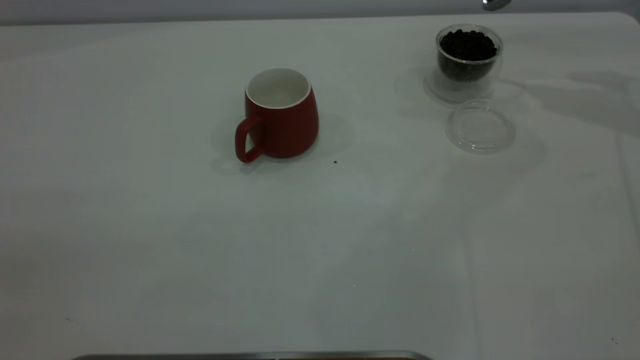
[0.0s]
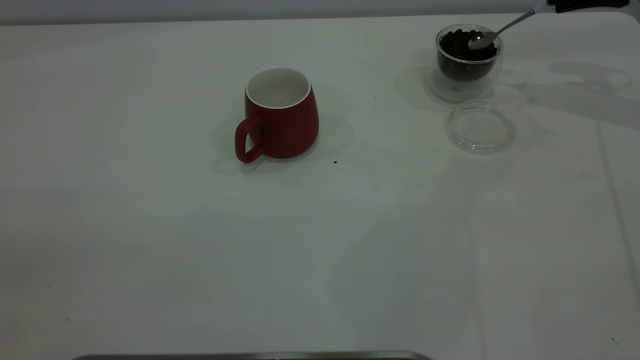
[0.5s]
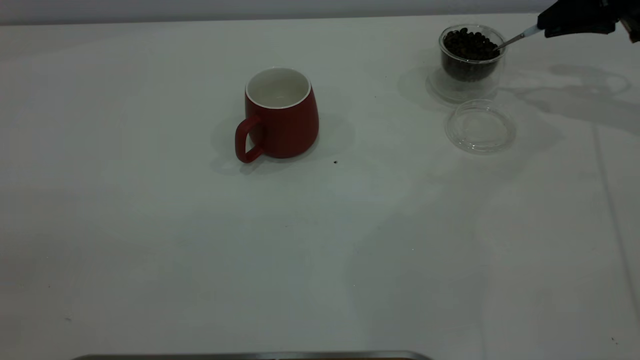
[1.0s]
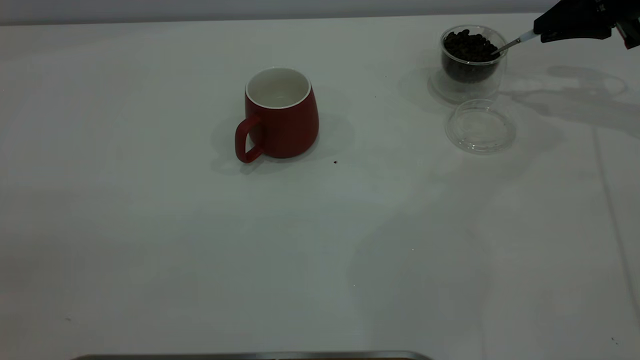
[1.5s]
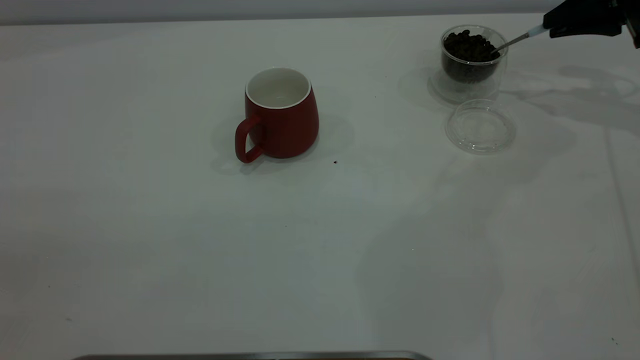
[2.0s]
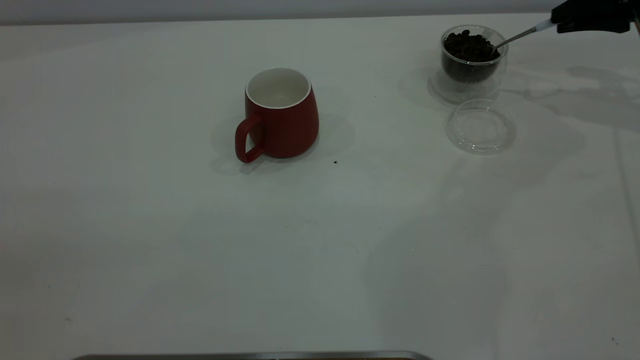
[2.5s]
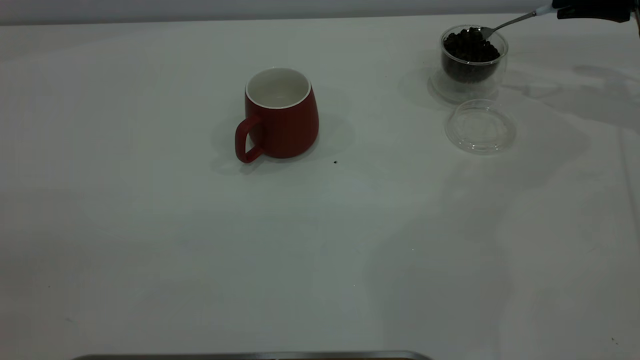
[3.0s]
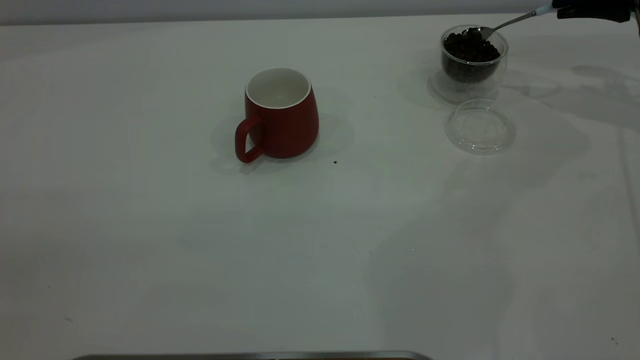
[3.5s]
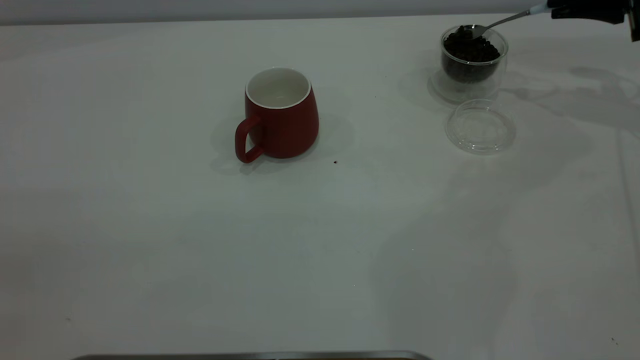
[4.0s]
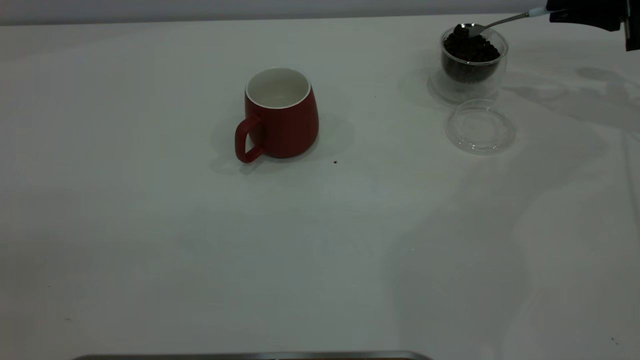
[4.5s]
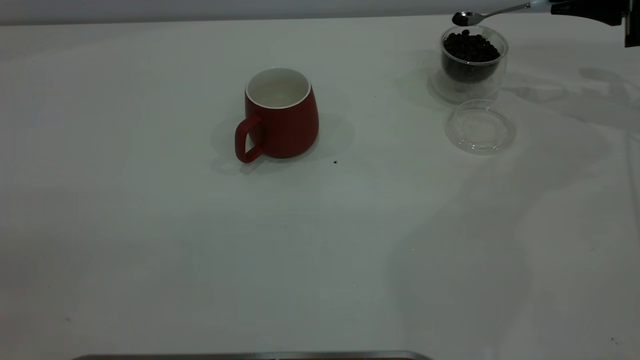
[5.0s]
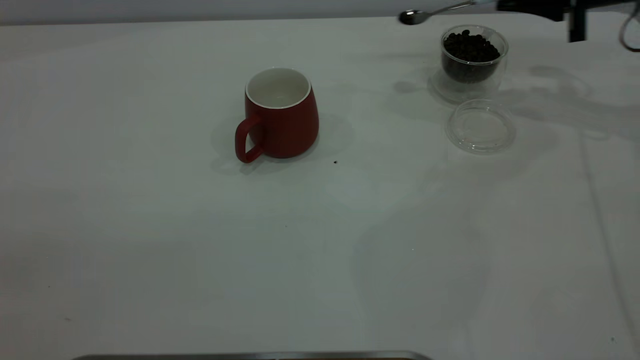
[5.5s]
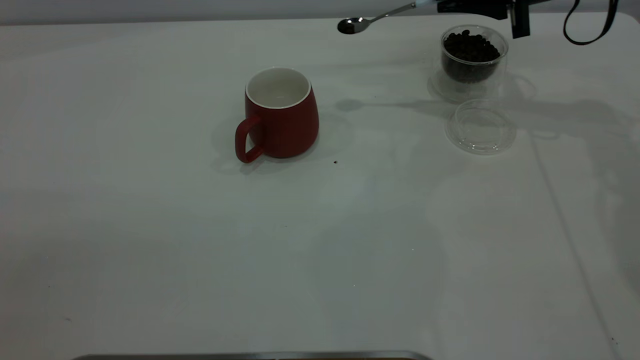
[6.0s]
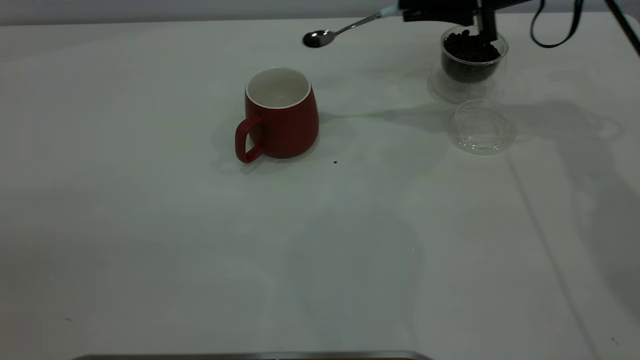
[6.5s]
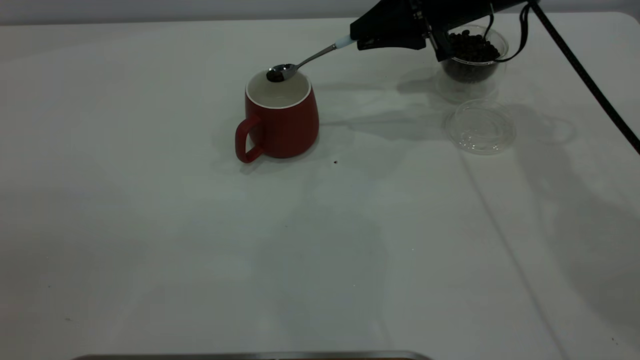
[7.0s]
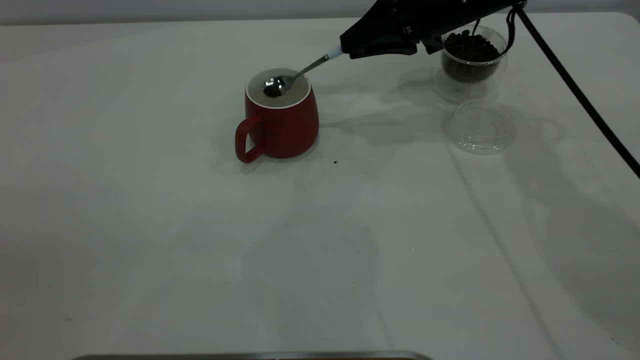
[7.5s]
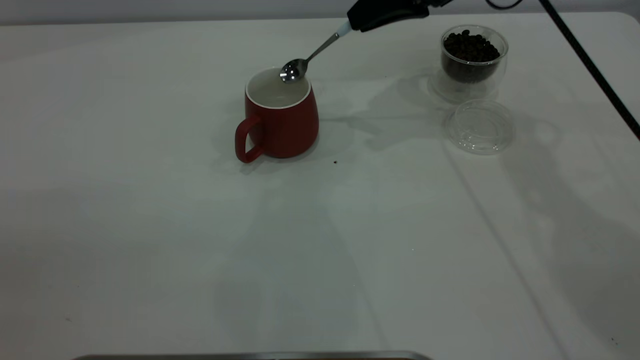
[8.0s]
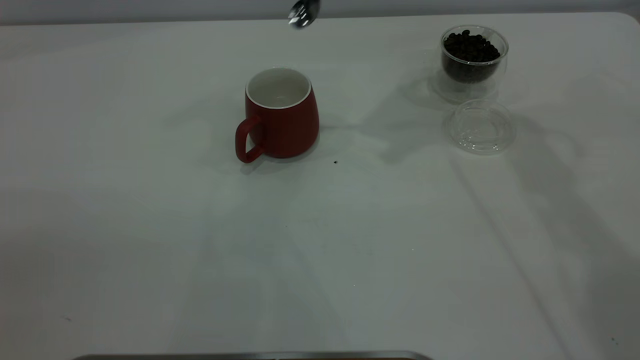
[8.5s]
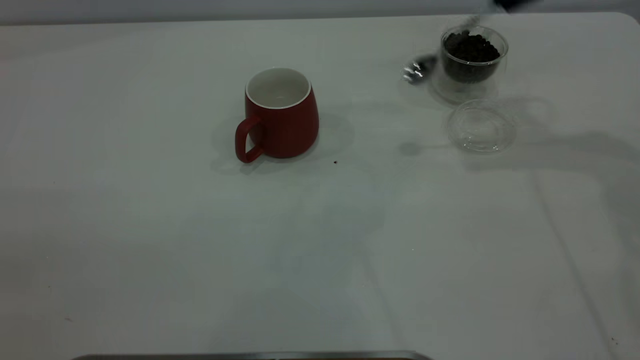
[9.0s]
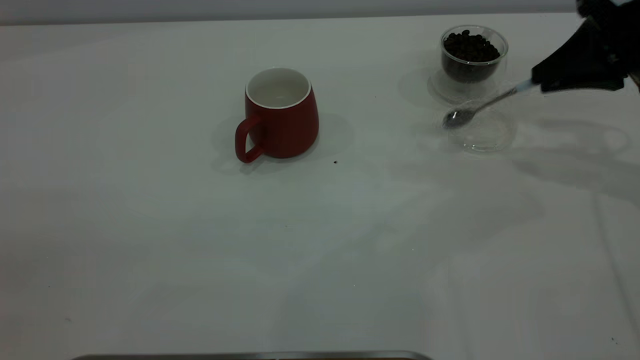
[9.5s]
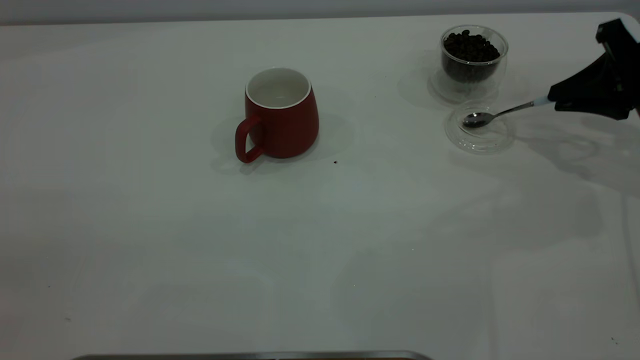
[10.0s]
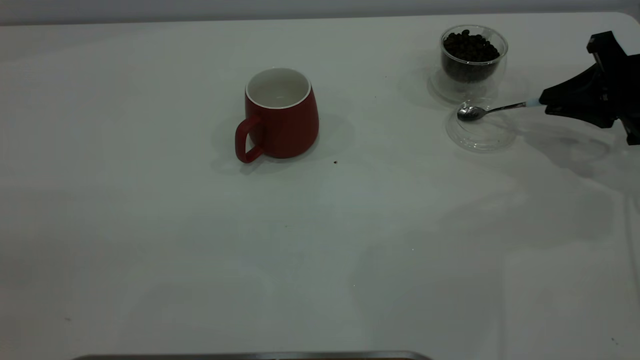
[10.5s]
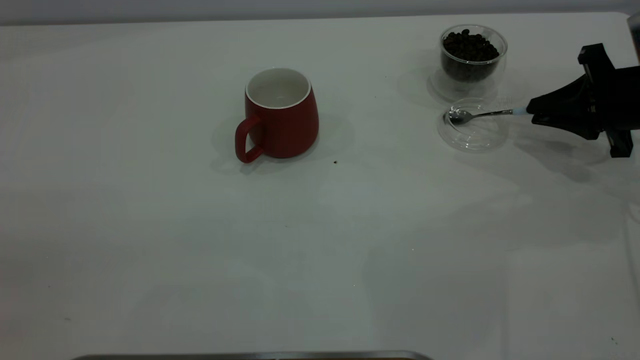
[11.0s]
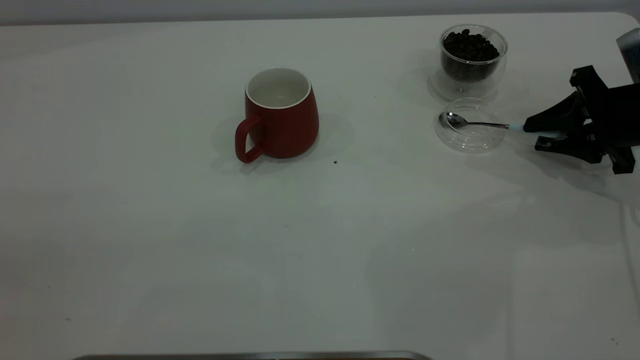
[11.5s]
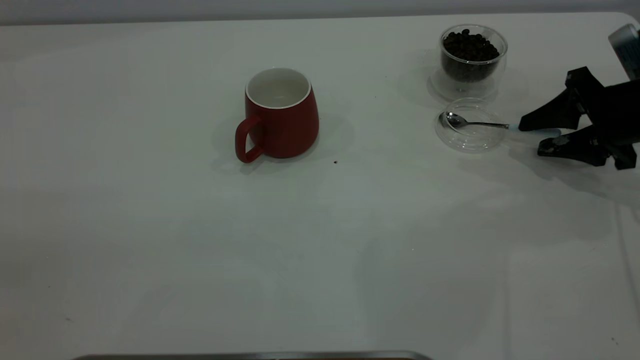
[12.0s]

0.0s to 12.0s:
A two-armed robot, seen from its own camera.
Task of the whole recording: the left gripper place the red cup in the center of the table, the right gripper take the blue spoon from the cup lid and scoop out the coffee beans from the coffee cup and put them into the red cup, the right gripper put the spoon back into the cup lid.
Step, 0.0s to 8.0s: Scoop a spoonful of beans into the cup.
0.0s to 2.0s: The right gripper moves downward, approximately 5 cm.
2.0s to 4.0s: The grippers move only a little.
4.0s to 6.0s: The right gripper shifts approximately 15 cm to the left.
6.0s to 8.0s: The right gripper is displaced to the left by some 10 cm.
8.0s to 10.0s: The right gripper moves to the right and downward, about 25 cm.
10.0s to 12.0s: The right gripper opens its fingers.

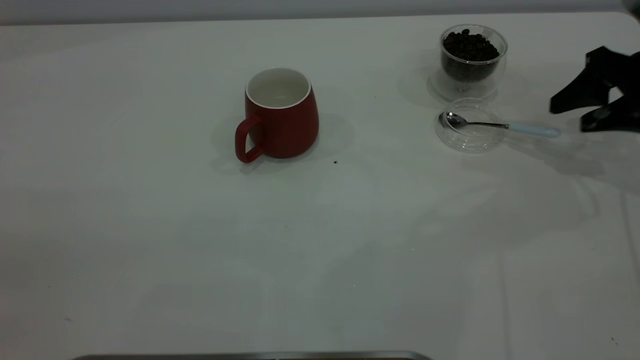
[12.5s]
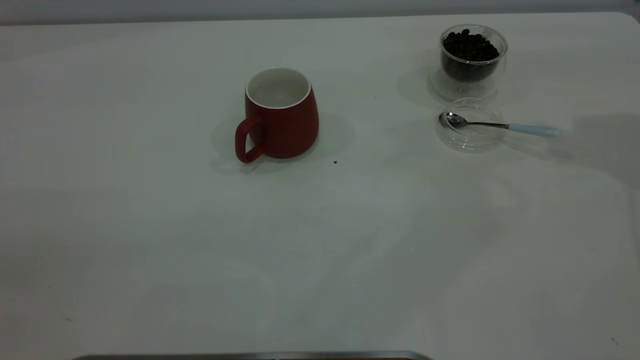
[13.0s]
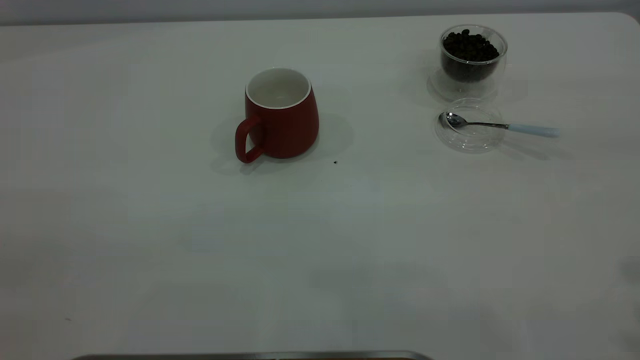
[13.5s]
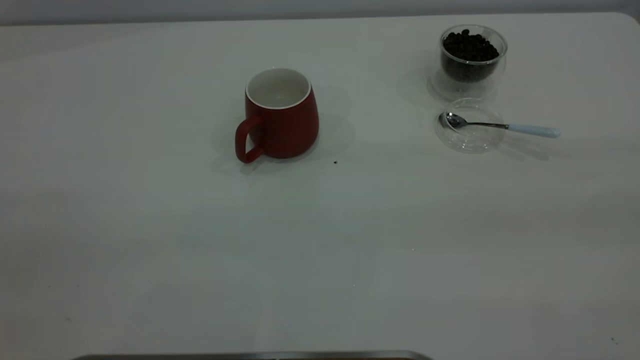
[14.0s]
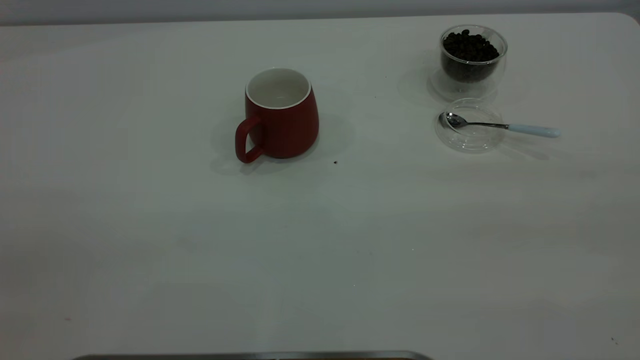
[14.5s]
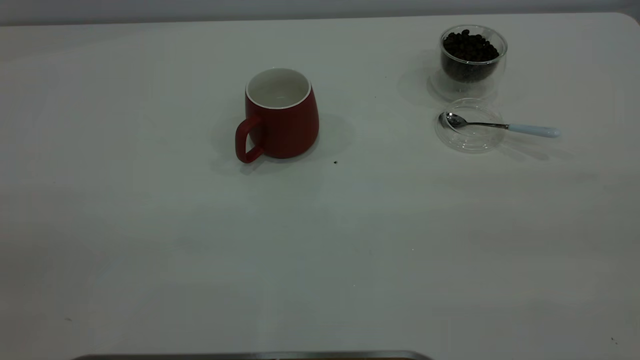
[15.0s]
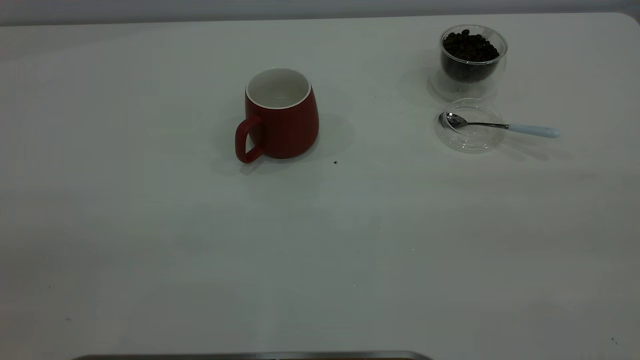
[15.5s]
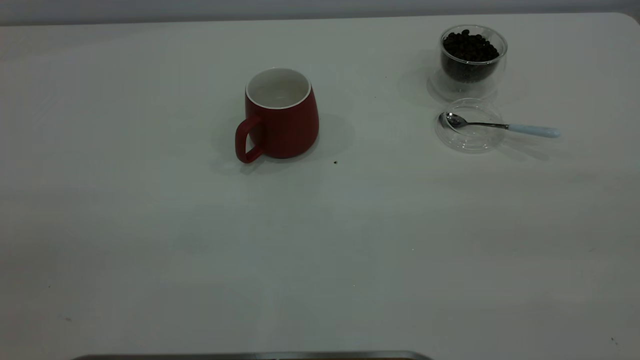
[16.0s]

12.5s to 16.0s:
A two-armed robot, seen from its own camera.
Task of the whole recording: the left gripper place the red cup in the center of the table, the right gripper take the blue spoon from the cup lid and scoop out the coffee beans from the coffee cup and put them into the red cup, the right gripper put the spoon back into the cup lid.
12.5s to 14.5s: The right gripper is displaced backward and upward by roughly 40 cm.
14.5s to 16.0s: Both grippers stay put.

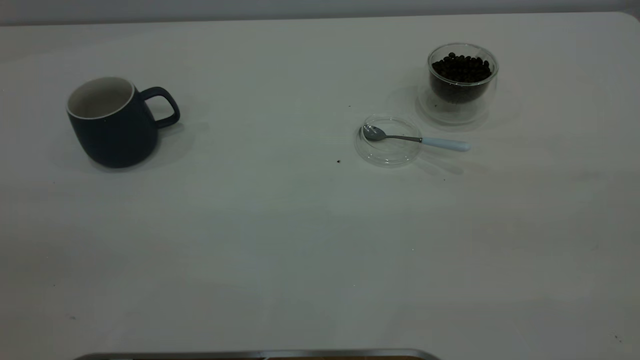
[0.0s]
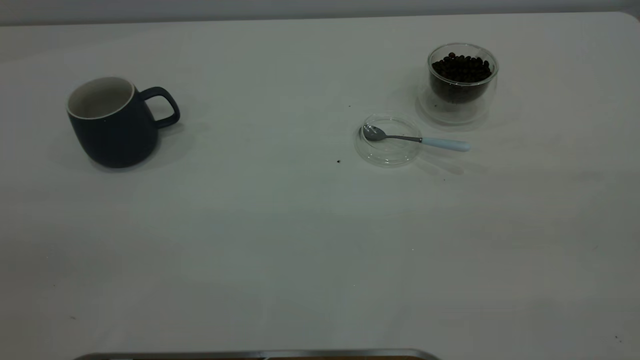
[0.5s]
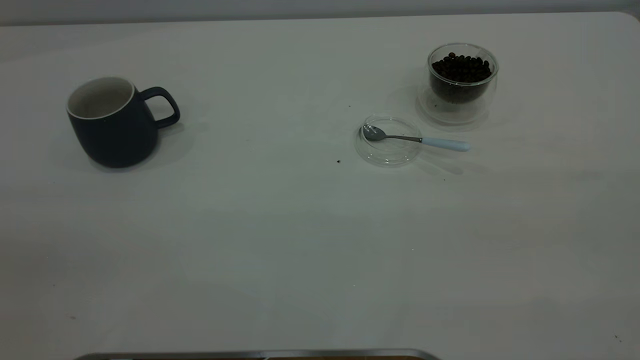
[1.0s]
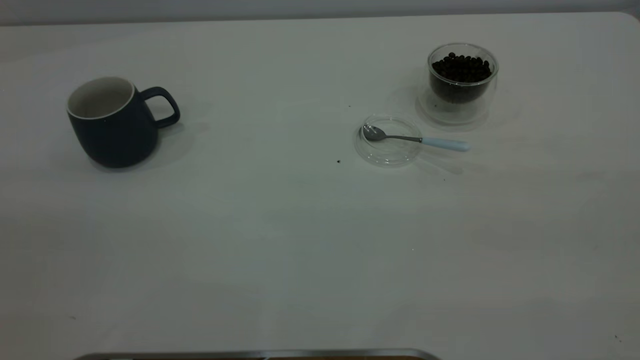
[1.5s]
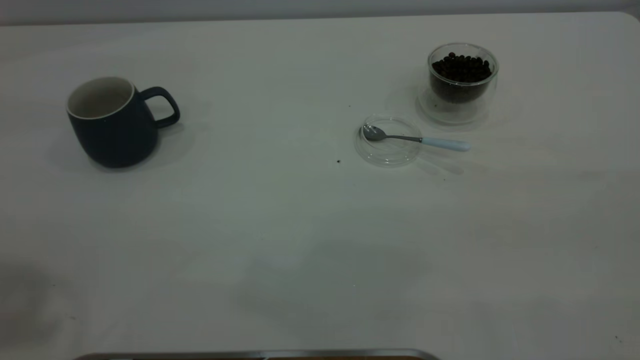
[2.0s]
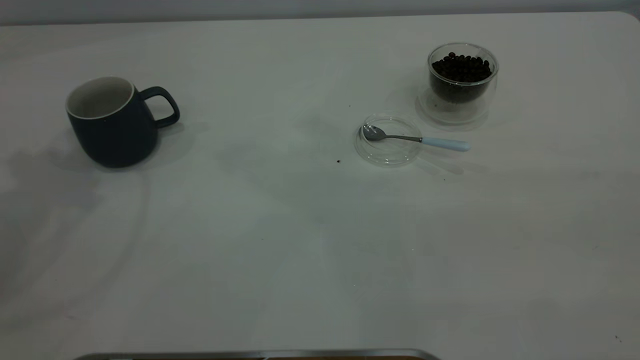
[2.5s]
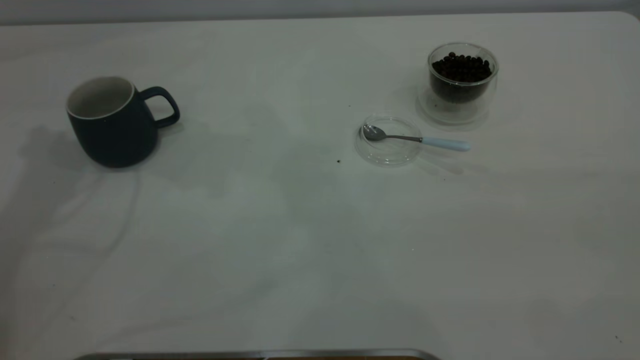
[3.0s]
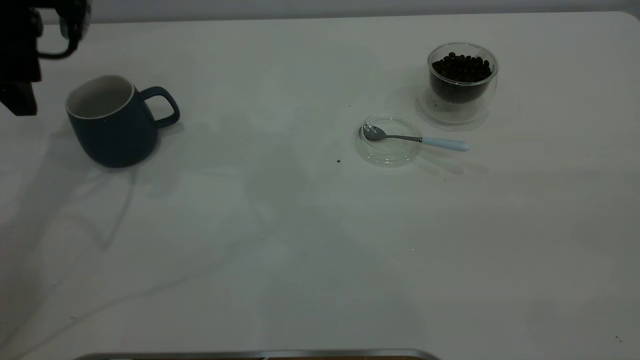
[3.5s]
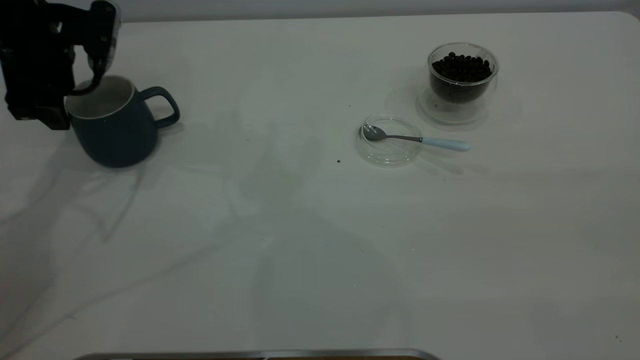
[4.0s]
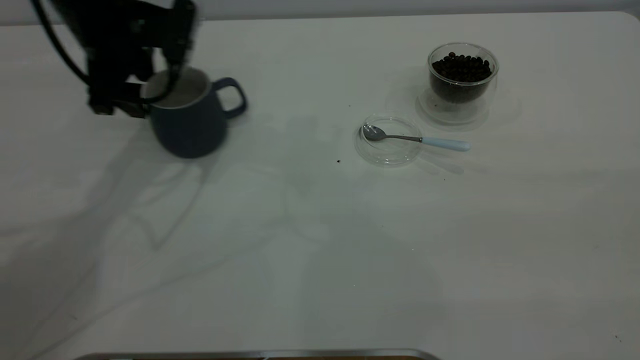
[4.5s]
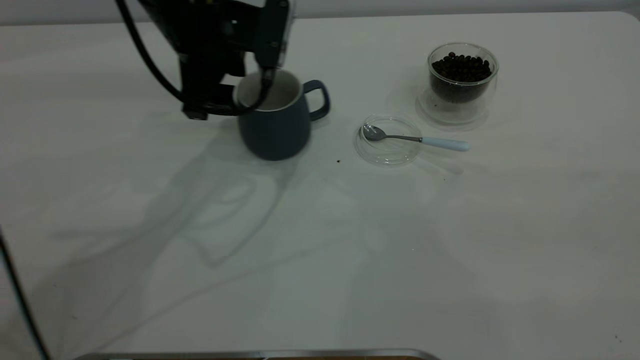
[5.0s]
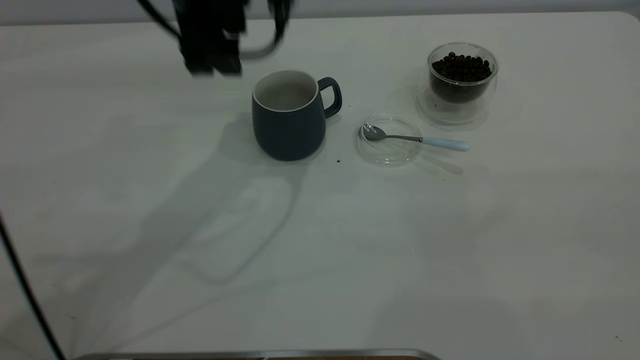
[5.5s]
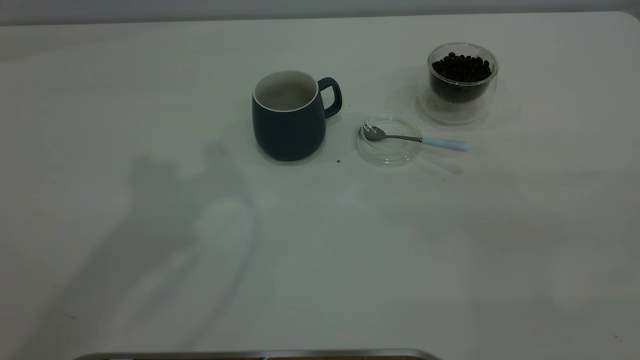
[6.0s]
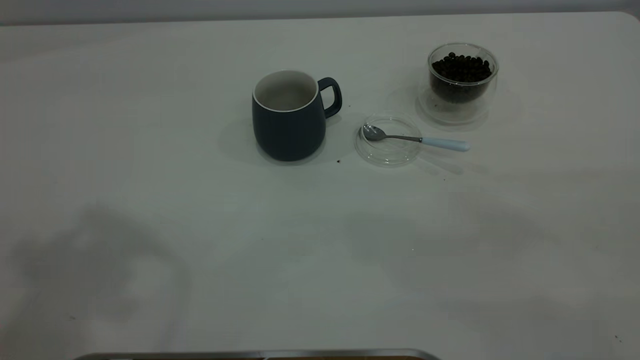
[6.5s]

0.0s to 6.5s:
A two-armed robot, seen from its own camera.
Task of the whole recording: the left gripper place the grey cup in the center of the table, the right gripper take the blue spoon from the cup lid and scoop out the coffee beans from the coffee cup and put them into the grey cup, the right gripper put the spoon back into the cup lid.
Step, 0.0s to 5.5s: Move the cup to the center of view.
2.0s to 4.5s: The left gripper shifts about 35 cm downward and forward.
4.5s to 6.5s: The left gripper goes about 40 cm upward and backward.
